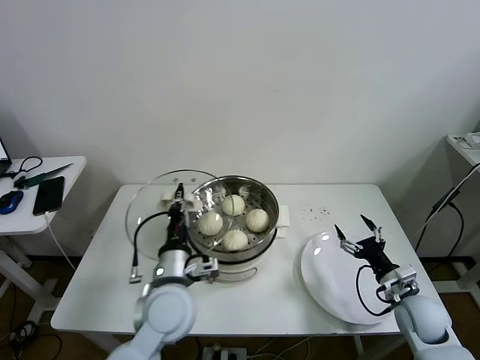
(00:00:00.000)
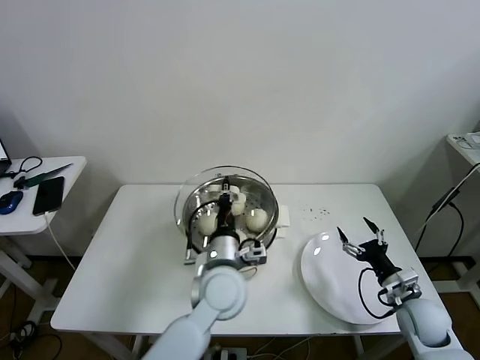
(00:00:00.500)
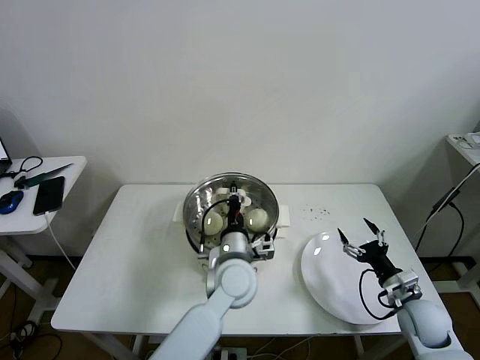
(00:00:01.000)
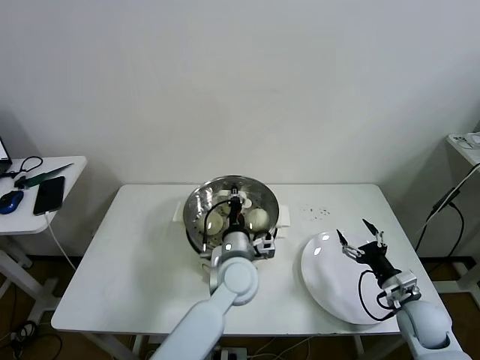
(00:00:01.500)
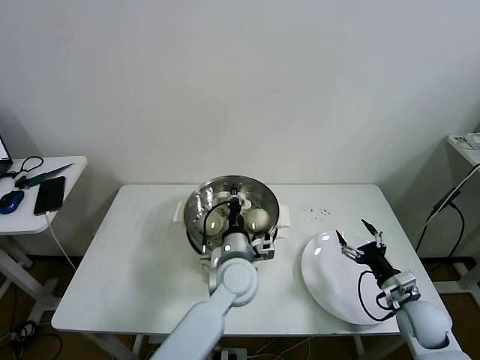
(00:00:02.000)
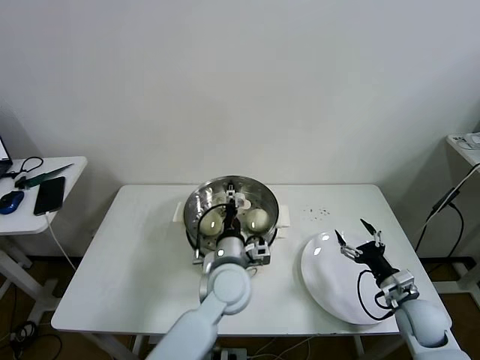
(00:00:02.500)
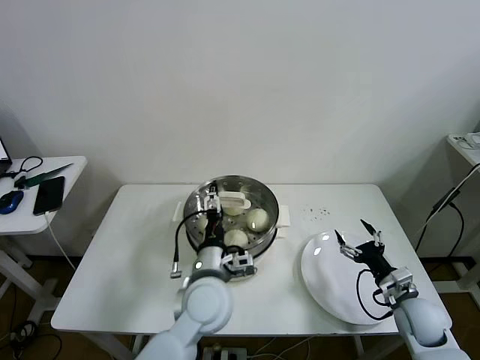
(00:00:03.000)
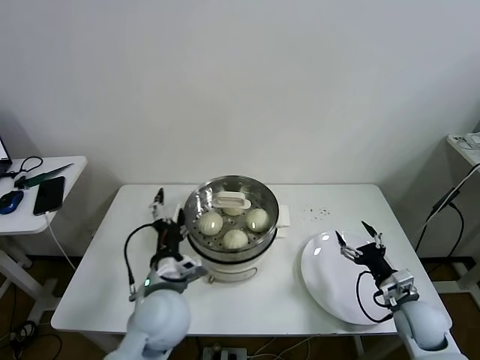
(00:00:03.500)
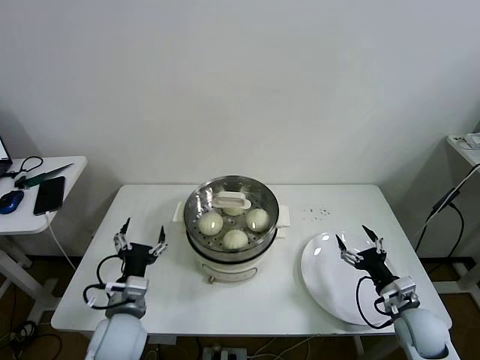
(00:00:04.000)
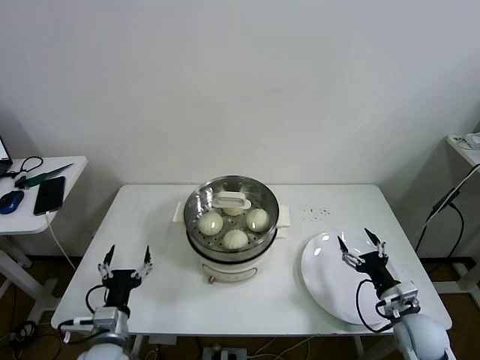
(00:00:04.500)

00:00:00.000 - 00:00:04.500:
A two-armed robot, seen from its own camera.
Task of the whole recording: take steamed baozi put them in steamer then cover it.
Step, 00:00:00.000 - 00:00:02.000: Place the pot lid on the steamer with left gripper.
00:00:00.000 - 00:00:02.000: The left gripper heads to the right and forward, covering roughly 15 cm.
00:00:02.000 - 00:00:04.500: The left gripper travels to the left and backward by some 30 cm, and opens.
